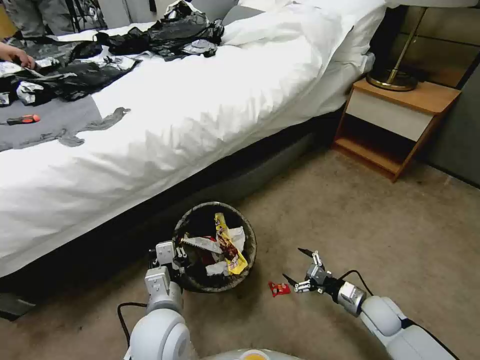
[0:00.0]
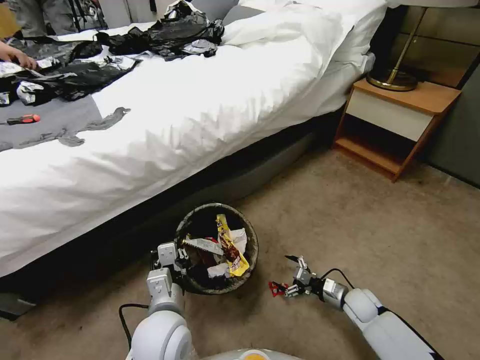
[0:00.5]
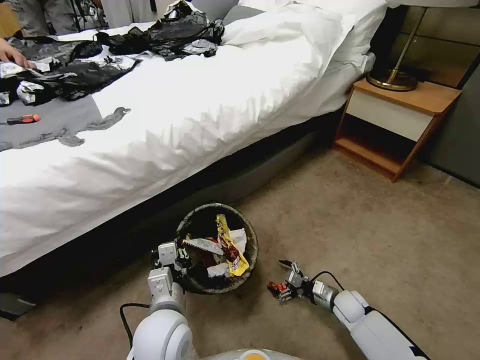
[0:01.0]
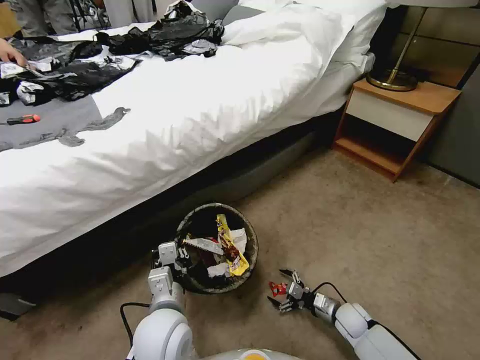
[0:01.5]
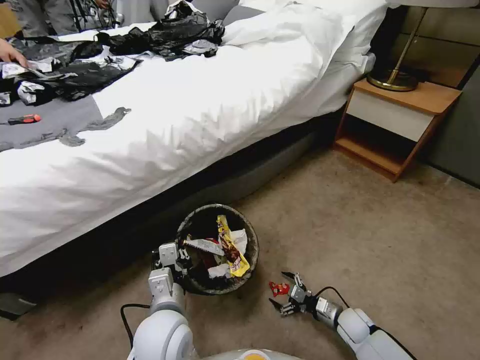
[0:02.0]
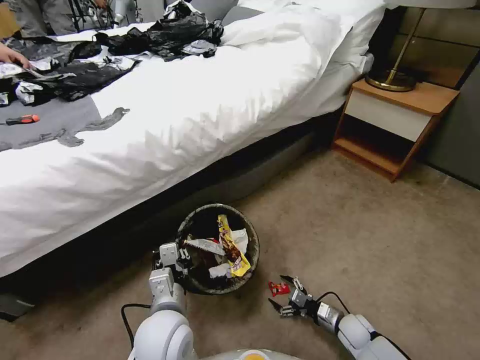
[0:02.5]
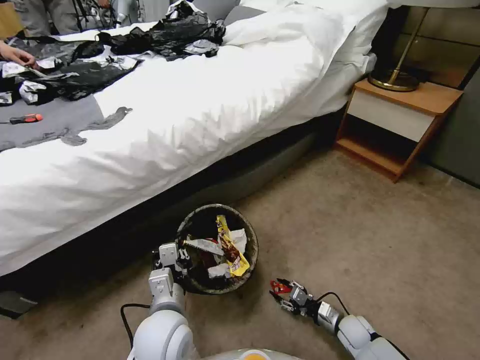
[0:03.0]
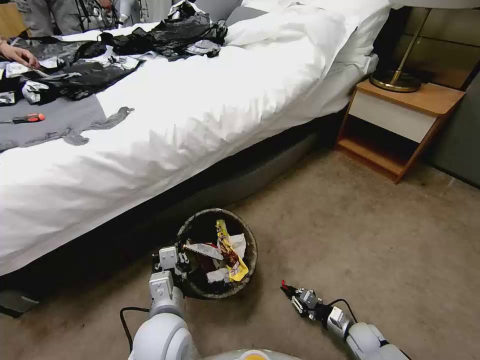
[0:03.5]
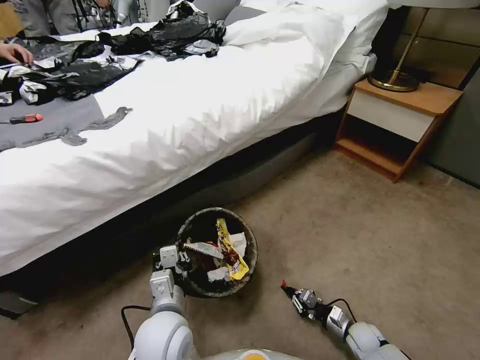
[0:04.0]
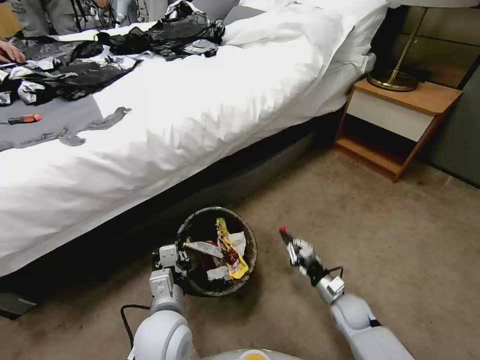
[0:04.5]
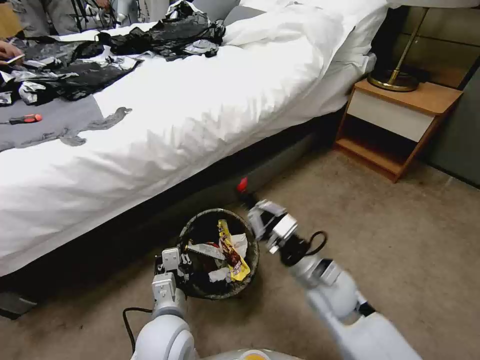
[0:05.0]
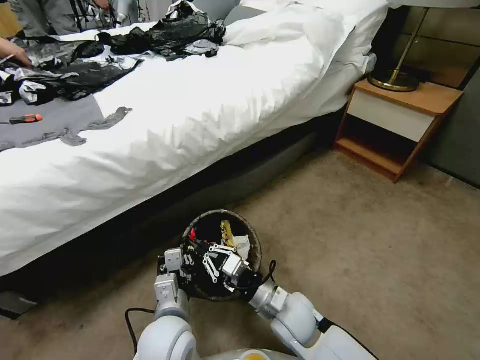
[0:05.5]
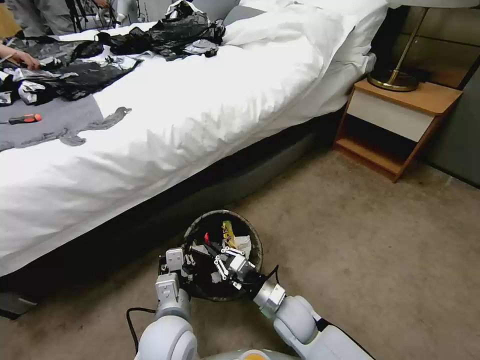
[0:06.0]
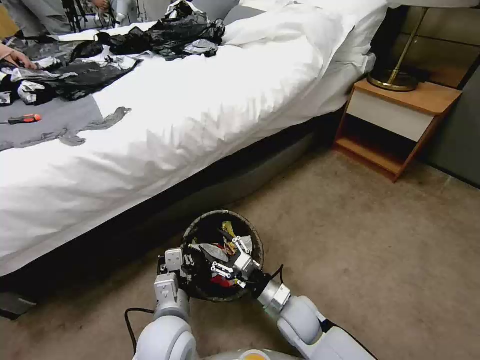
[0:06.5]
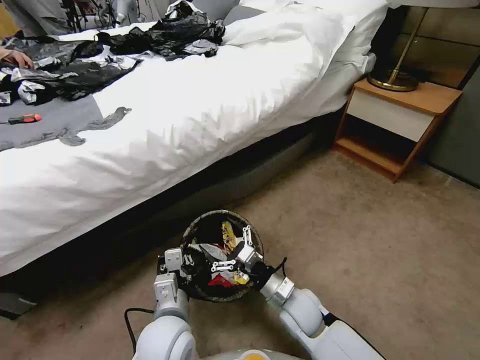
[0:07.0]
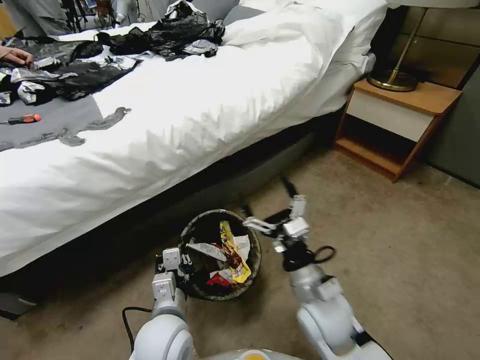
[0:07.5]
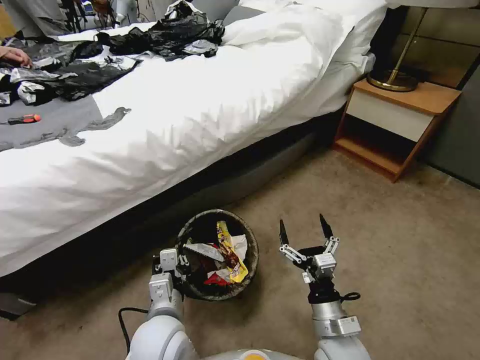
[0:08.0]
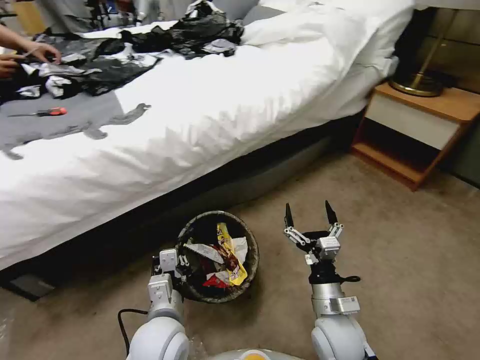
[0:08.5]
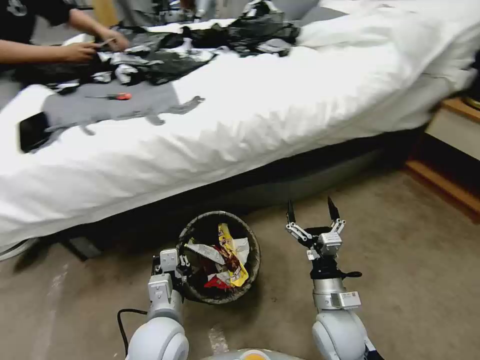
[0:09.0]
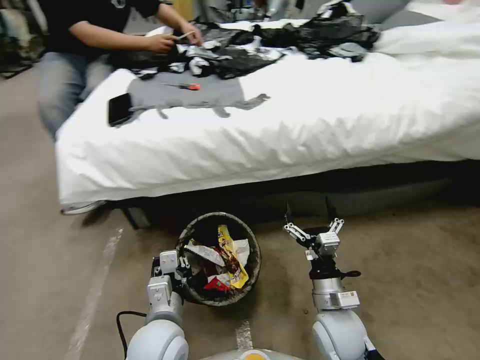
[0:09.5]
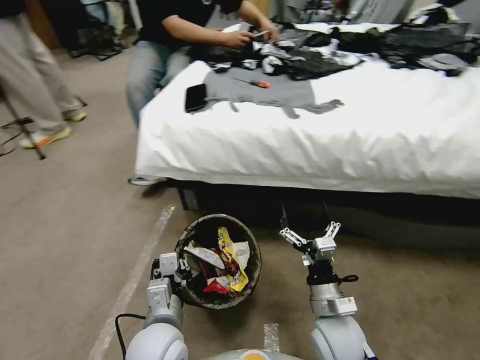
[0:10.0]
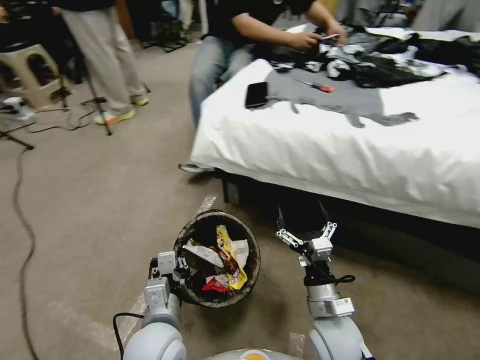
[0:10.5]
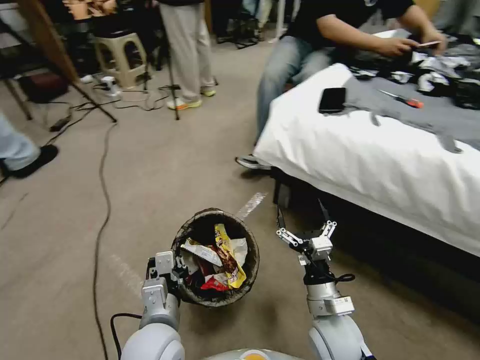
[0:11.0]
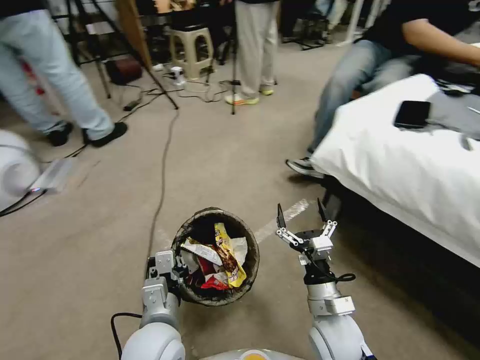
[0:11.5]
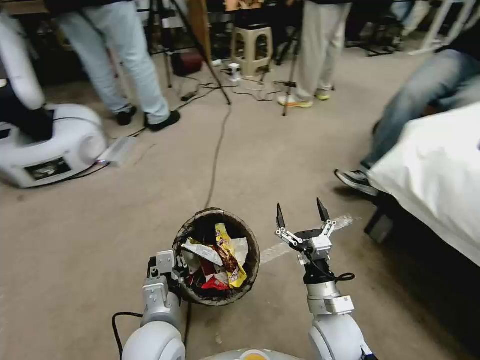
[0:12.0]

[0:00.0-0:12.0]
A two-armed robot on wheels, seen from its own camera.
Task of the whole recording: Pick up the trash bin, then pick up the garbage from the floor and place it into the trash bin.
0:00.0 to 0:02.0: The right gripper is displaced downward by approximately 10 cm.
0:02.0 to 0:04.0: The right gripper moves roughly 5 cm, and closes.
0:04.0 to 0:06.0: The right gripper is displaced to the left and upward by roughly 30 cm.
0:06.0 to 0:08.0: The right gripper shifts approximately 10 cm backward, to the right and upward, and opens.

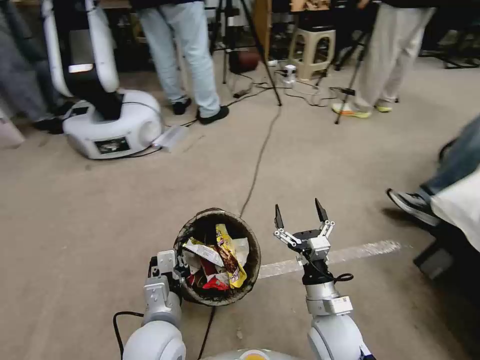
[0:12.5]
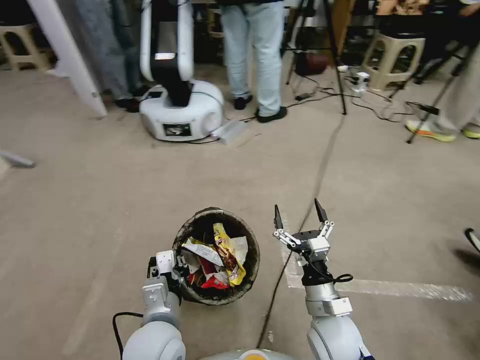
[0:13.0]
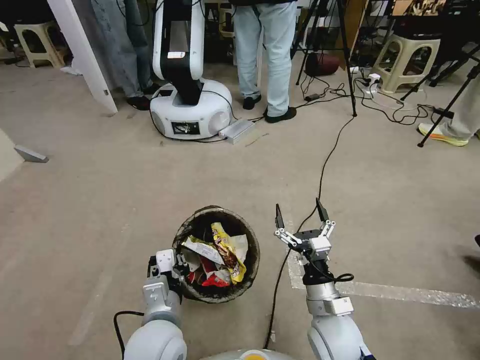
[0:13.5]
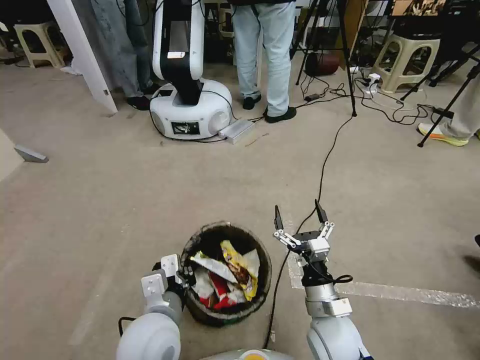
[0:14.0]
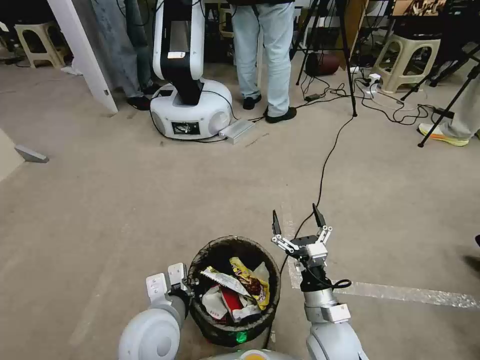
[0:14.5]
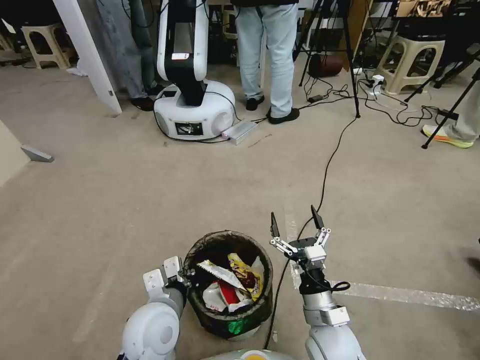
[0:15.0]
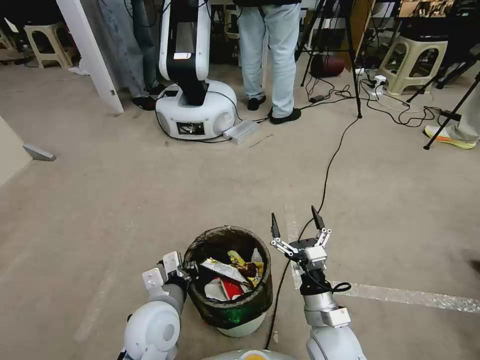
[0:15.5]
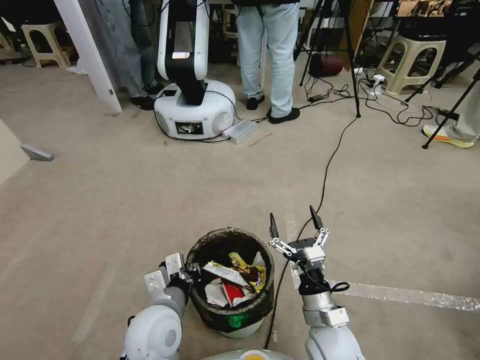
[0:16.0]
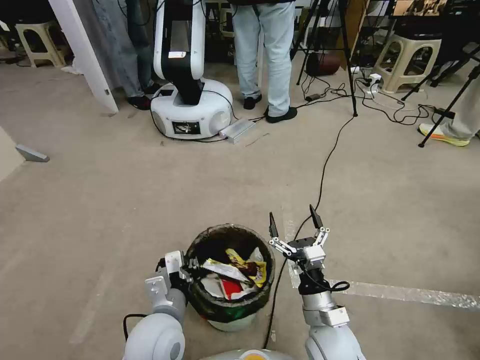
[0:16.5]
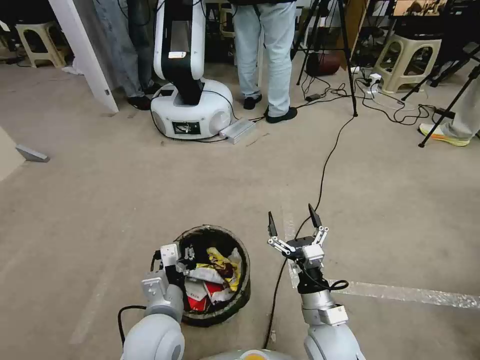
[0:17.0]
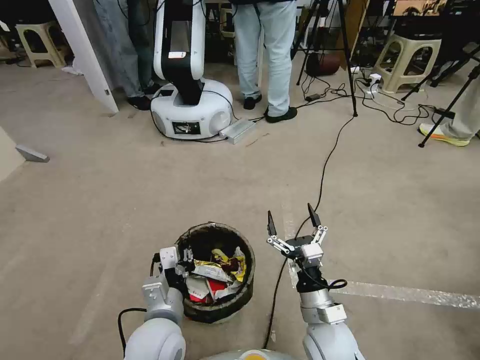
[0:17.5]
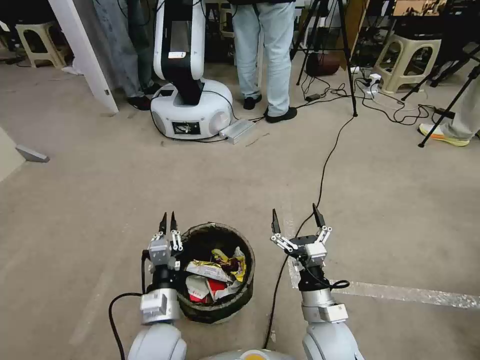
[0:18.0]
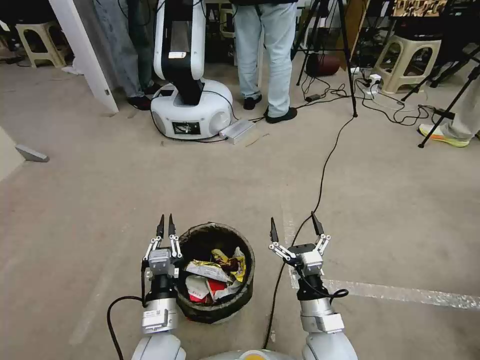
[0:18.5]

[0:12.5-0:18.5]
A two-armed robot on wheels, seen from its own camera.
Task of the whole recording: Pick up the trash bin, then pick up the garbage from the floor and place it into the trash bin.
0:14.5 to 0:16.5: The grippers move only a little.
0:16.5 to 0:18.5: The left gripper is displaced downward by roughly 5 cm.
